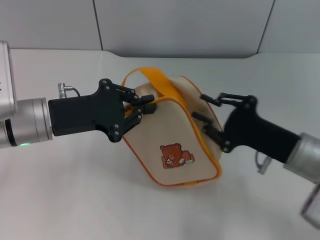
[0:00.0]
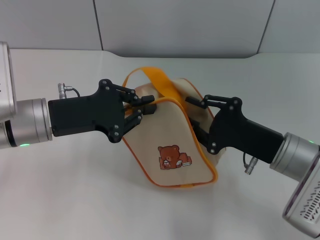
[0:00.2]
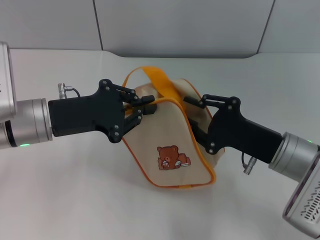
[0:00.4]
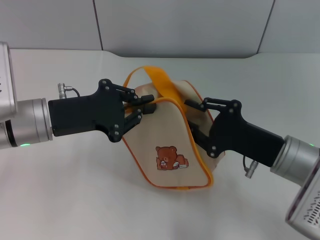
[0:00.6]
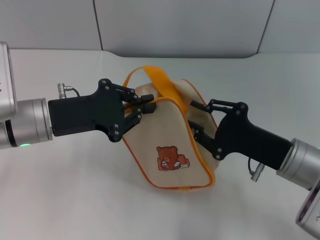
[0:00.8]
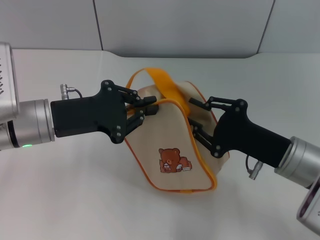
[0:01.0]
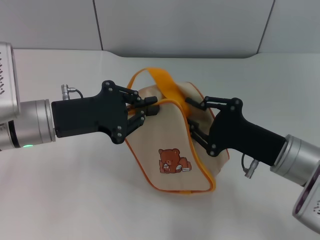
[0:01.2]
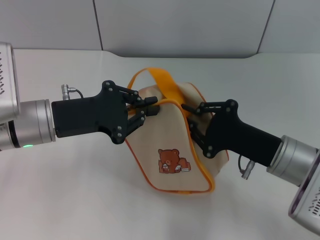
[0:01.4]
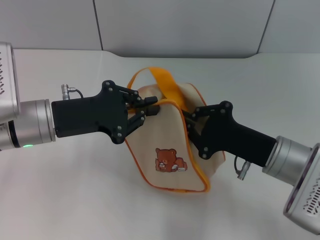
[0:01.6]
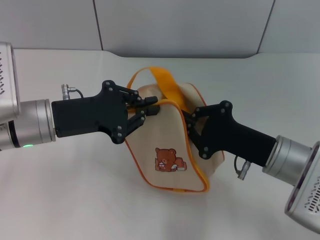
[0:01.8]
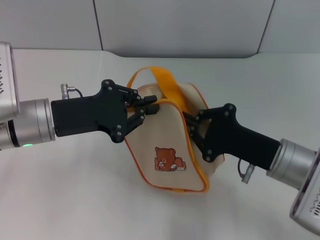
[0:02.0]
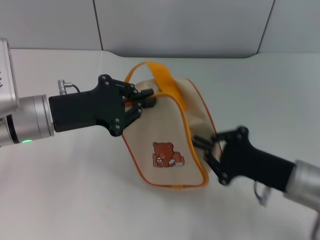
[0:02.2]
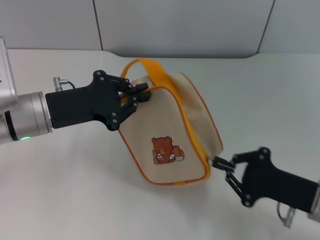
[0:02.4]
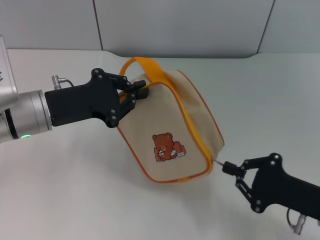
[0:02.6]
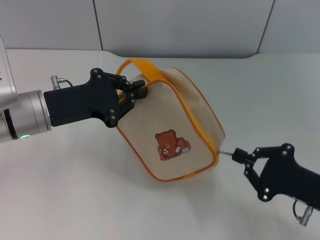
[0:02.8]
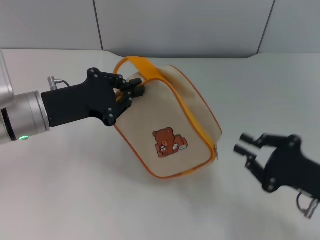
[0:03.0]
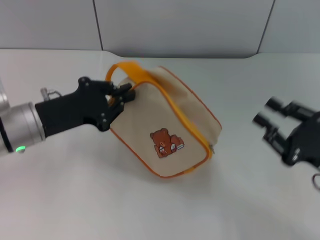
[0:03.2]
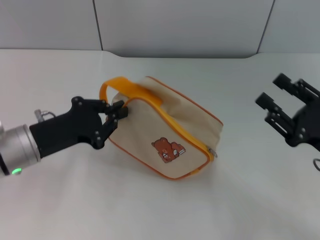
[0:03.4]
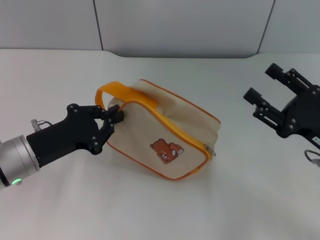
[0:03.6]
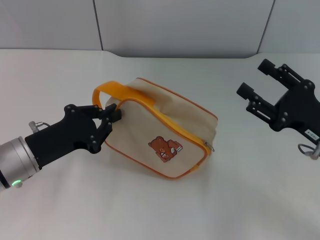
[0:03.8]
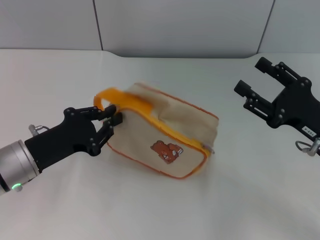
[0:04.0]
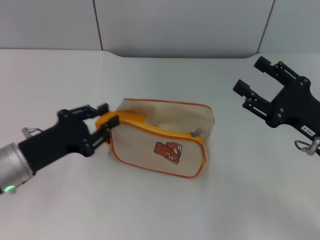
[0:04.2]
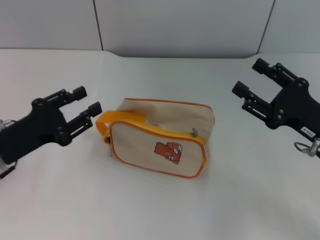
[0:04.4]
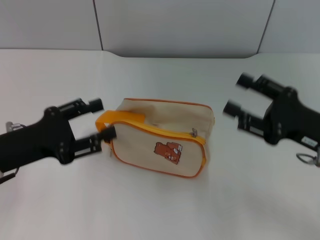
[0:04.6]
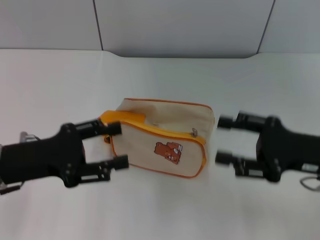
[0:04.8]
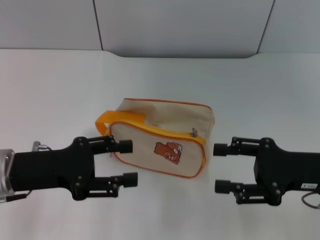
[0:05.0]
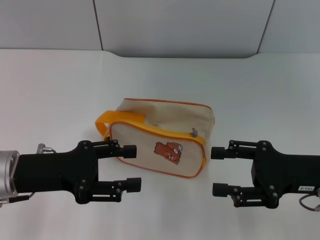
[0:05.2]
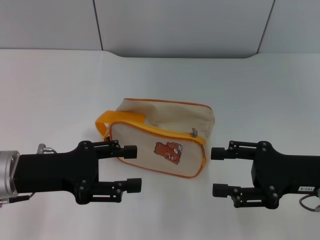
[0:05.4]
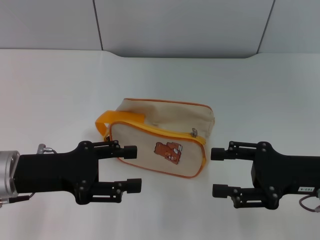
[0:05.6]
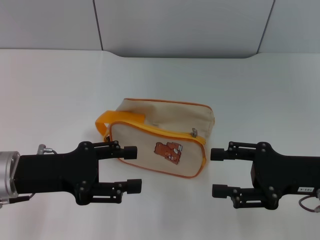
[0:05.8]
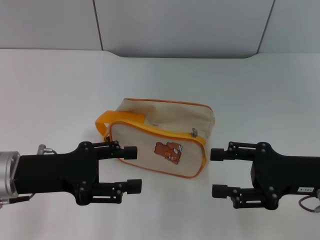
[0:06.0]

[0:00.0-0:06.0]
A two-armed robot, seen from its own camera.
Step, 0:00.0 to 0:03.0: Unzip the zipper of bag with right gripper.
Step, 0:03.2 to 0:04.4: Place the bag on the table with left gripper.
0:00.0 to 0:01.6: The grippers make only small movements.
0:01.6 to 0:03.0: The right gripper shifts some 10 cm to the right and backward.
0:03.0 to 0:04.4: The left gripper is displaced backward and to the left by approximately 10 cm. Meanwhile the right gripper shifts about 5 cm forward, and opens its fingers.
0:04.4 to 0:06.0: The left gripper opens its fingers.
